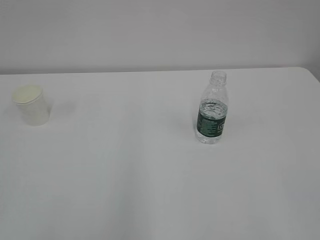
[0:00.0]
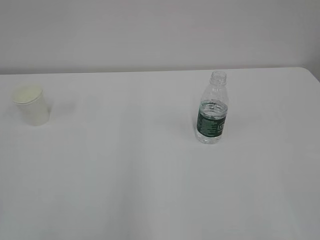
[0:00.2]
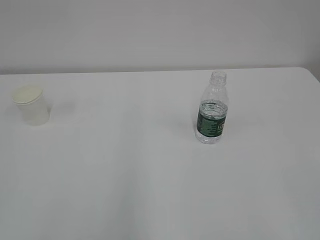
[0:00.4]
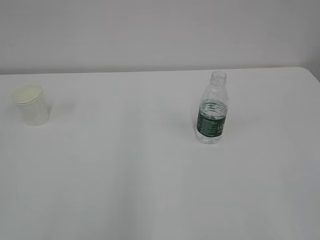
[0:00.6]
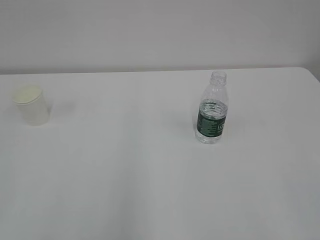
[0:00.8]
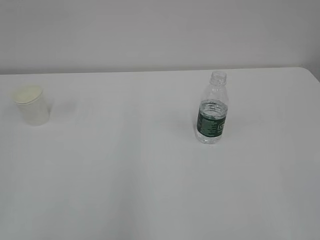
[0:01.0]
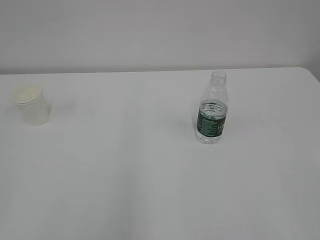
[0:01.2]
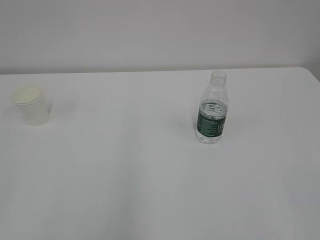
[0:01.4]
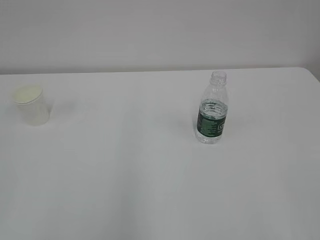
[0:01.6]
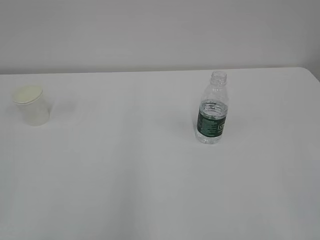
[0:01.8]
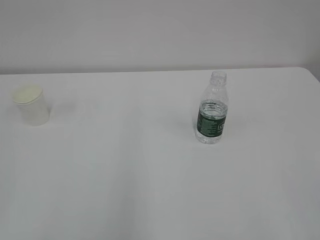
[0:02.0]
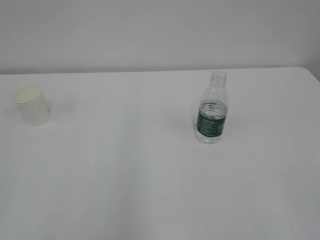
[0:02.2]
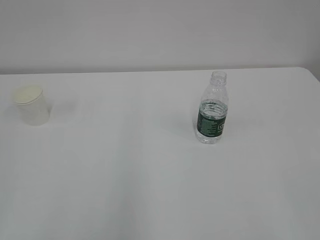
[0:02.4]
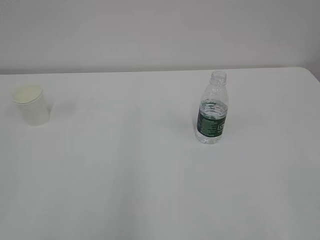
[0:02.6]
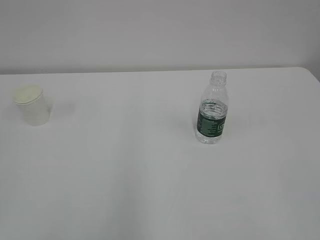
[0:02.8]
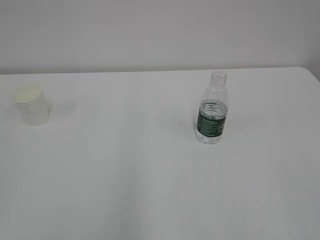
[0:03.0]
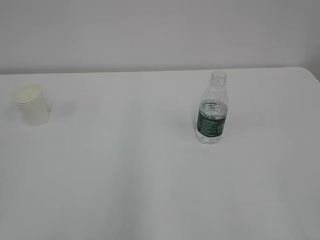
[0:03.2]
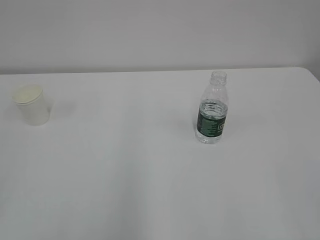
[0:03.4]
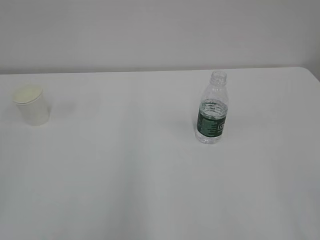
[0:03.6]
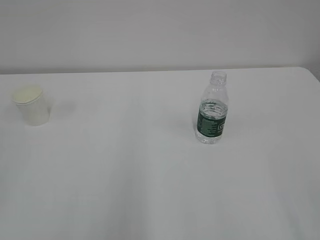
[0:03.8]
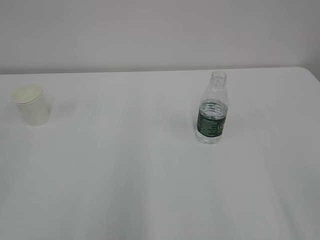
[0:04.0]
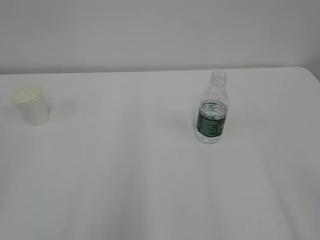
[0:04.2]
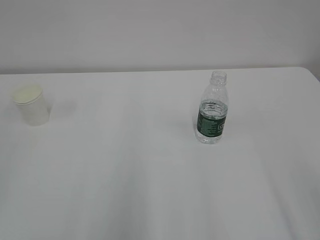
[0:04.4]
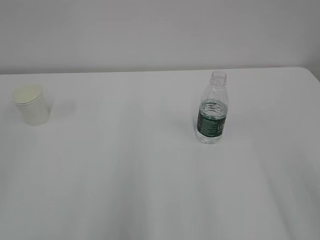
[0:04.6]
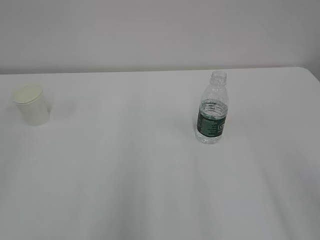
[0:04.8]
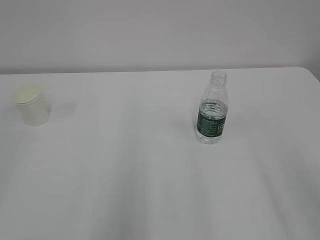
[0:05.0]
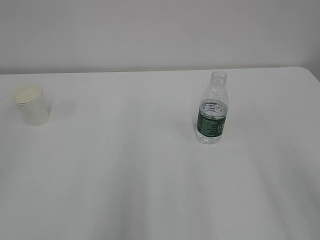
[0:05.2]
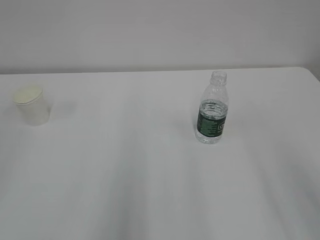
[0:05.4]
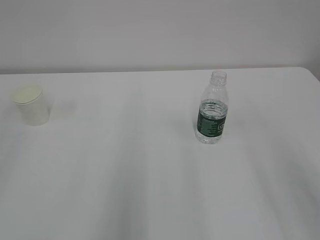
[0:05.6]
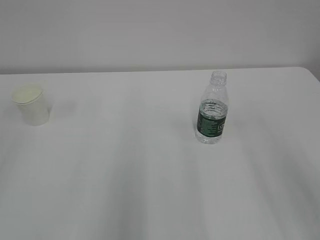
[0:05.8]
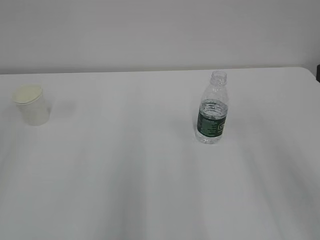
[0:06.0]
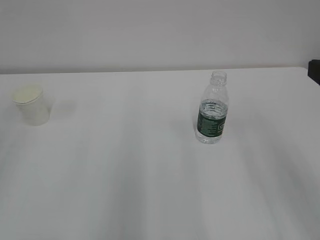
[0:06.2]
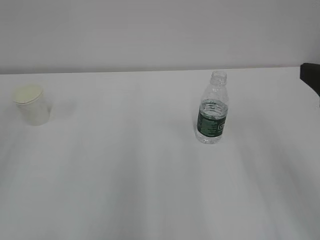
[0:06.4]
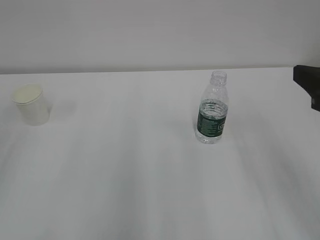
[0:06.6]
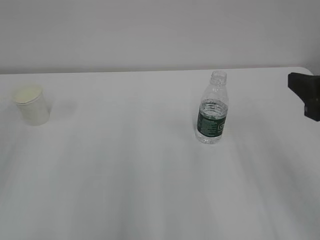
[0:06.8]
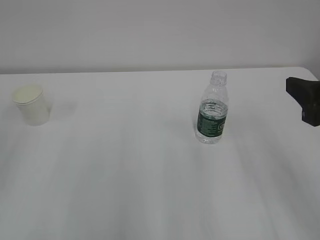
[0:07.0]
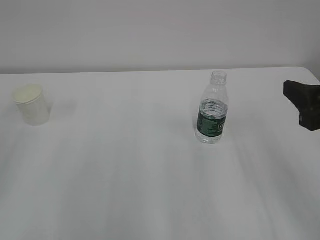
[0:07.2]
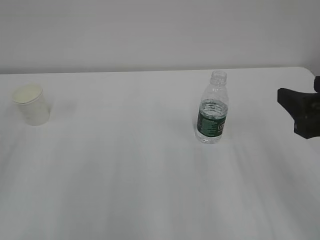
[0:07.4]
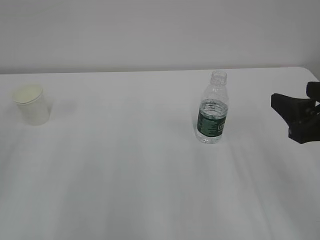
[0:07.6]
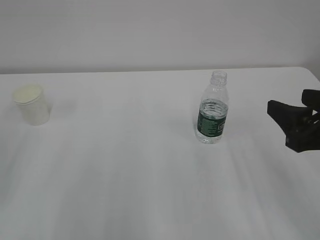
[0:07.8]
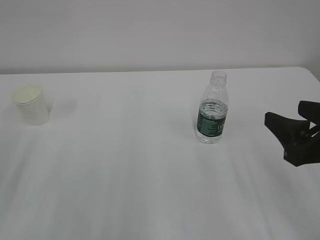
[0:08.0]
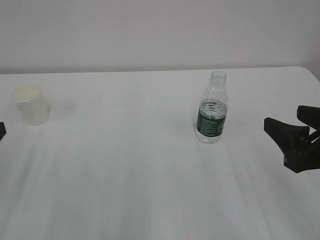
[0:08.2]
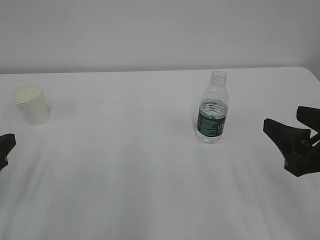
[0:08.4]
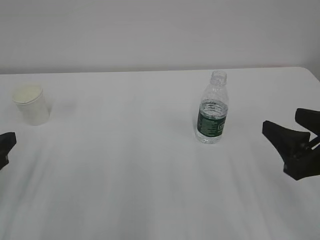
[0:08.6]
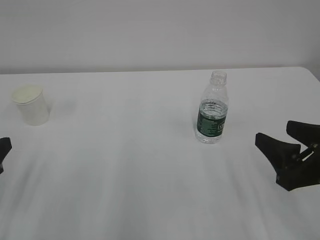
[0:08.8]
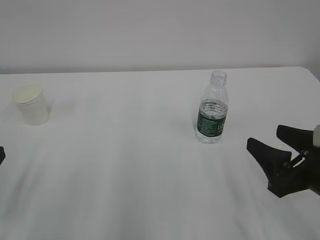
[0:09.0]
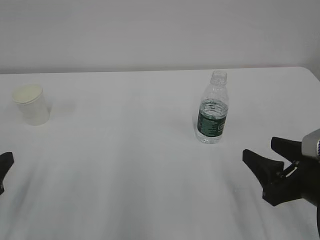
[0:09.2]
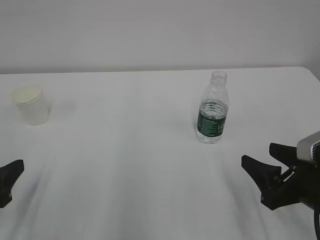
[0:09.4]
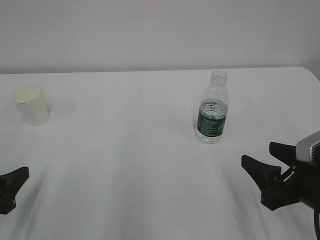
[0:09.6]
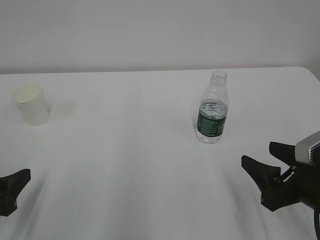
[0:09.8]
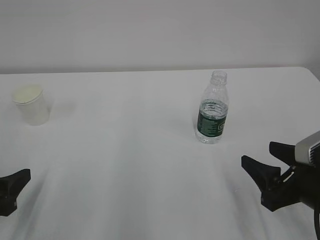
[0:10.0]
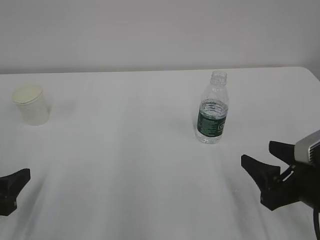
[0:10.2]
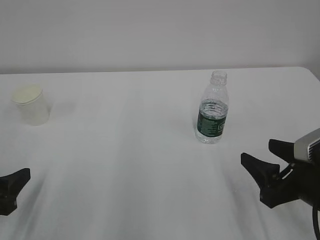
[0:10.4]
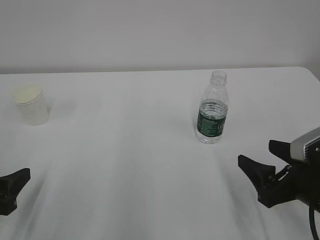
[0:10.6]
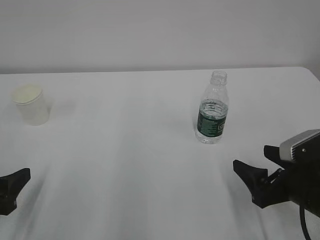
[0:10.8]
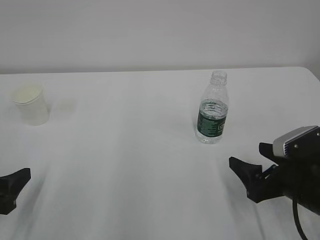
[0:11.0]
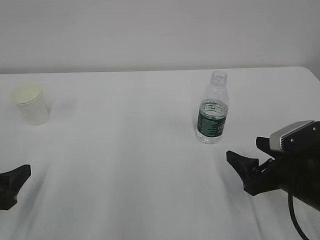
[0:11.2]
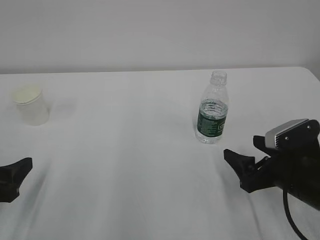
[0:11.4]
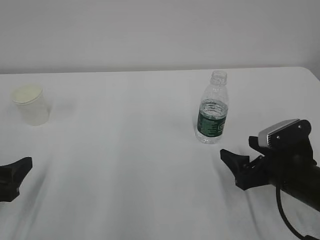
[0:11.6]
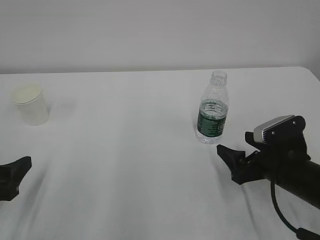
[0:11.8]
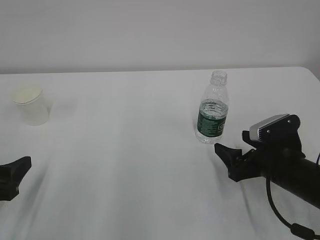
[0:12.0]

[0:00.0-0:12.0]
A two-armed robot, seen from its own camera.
0:06.0 to 0:07.6: The right gripper is displaced downward by some 5 cm.
0:07.6 to 0:09.0: The right gripper goes approximately 10 cm downward.
0:09.0 to 0:10.4: The grippers stay close to where they were, moving slightly.
0:10.4 to 0:12.0: The right gripper moves forward, roughly 5 cm, and opens.

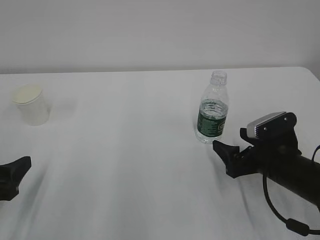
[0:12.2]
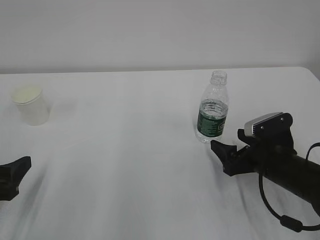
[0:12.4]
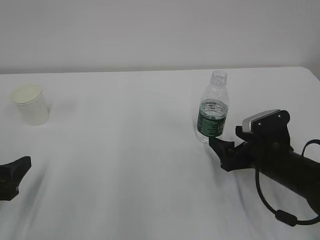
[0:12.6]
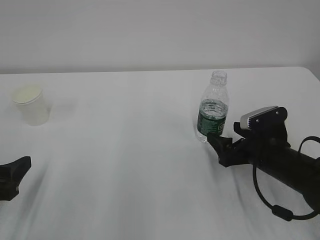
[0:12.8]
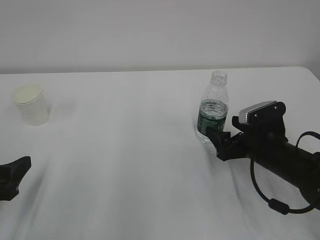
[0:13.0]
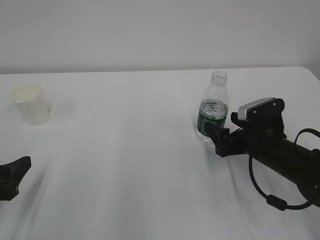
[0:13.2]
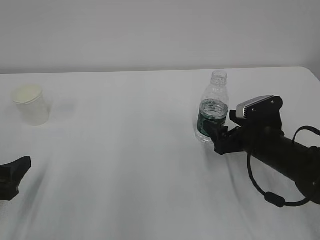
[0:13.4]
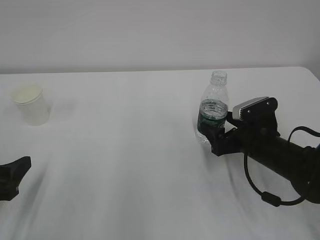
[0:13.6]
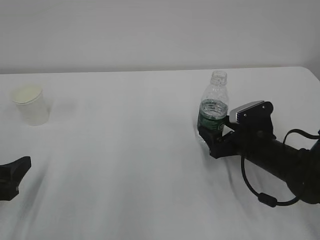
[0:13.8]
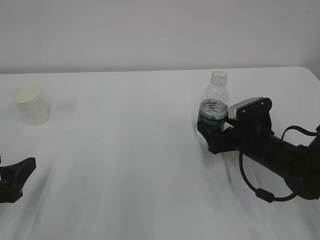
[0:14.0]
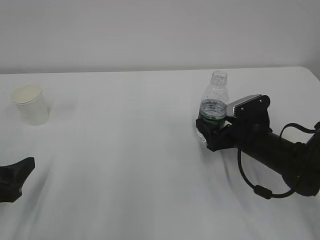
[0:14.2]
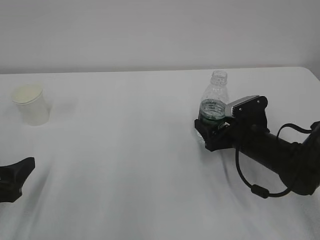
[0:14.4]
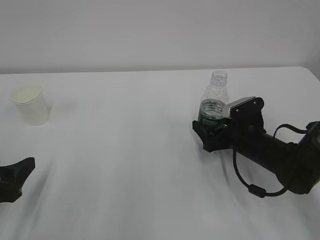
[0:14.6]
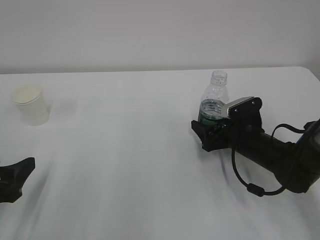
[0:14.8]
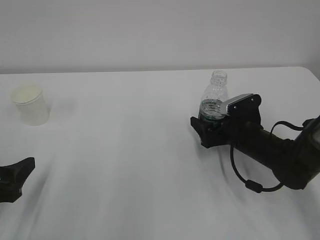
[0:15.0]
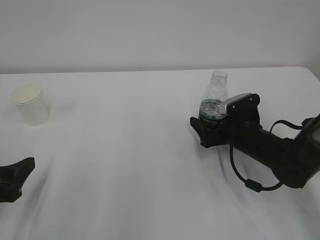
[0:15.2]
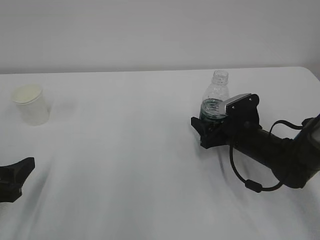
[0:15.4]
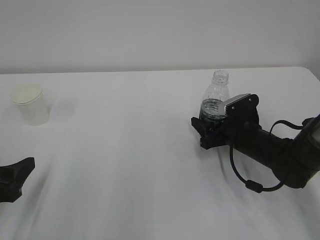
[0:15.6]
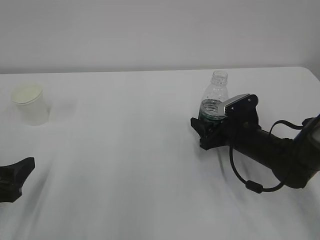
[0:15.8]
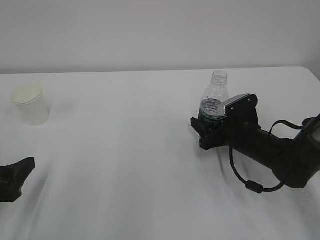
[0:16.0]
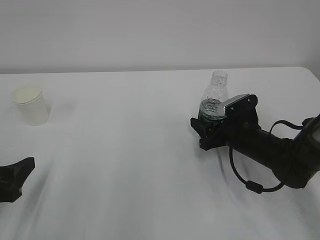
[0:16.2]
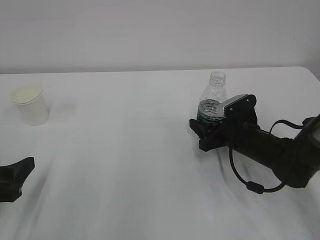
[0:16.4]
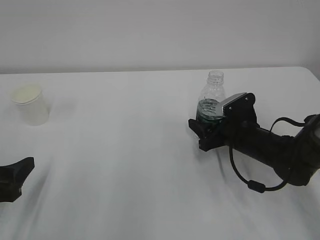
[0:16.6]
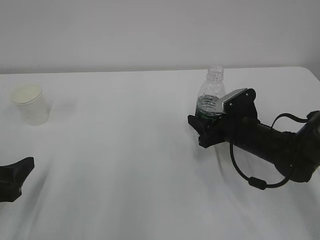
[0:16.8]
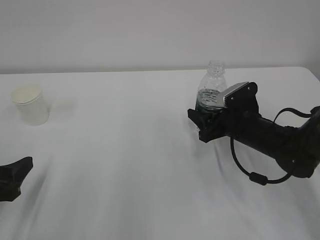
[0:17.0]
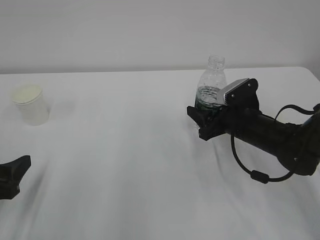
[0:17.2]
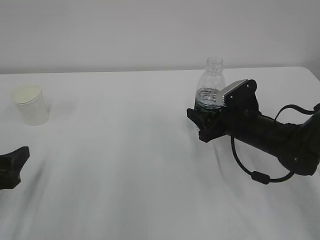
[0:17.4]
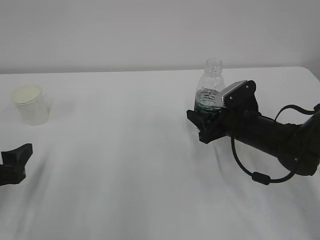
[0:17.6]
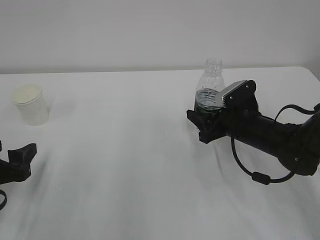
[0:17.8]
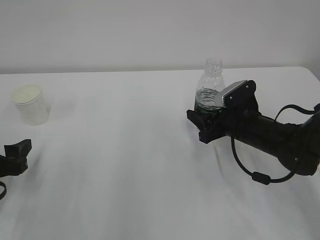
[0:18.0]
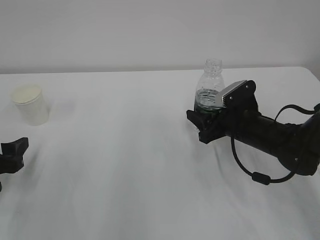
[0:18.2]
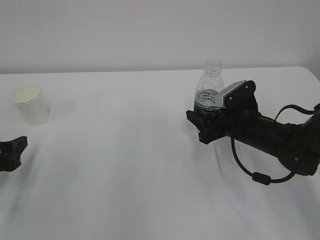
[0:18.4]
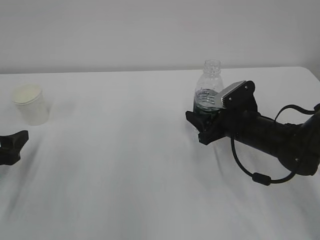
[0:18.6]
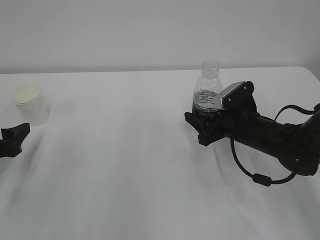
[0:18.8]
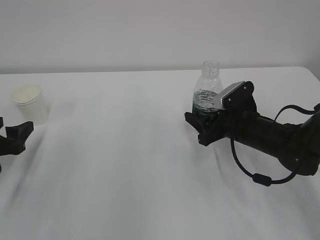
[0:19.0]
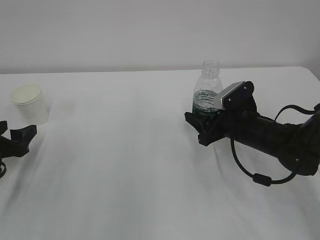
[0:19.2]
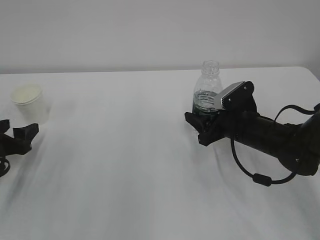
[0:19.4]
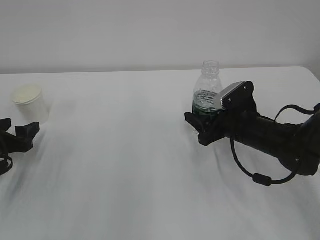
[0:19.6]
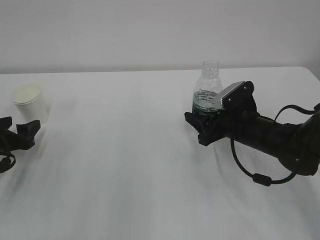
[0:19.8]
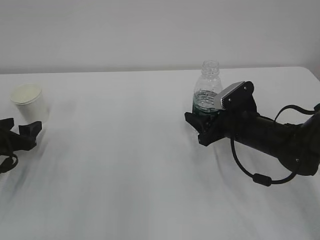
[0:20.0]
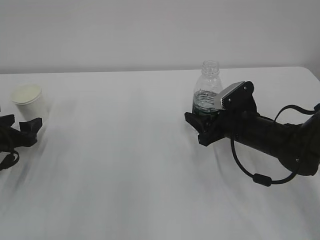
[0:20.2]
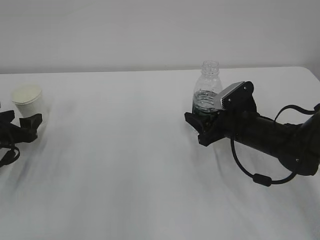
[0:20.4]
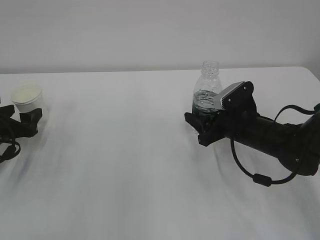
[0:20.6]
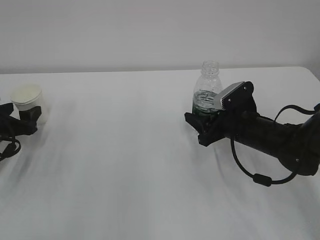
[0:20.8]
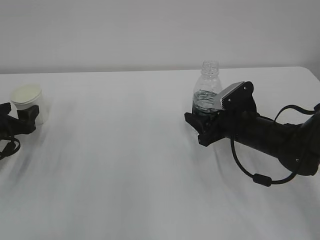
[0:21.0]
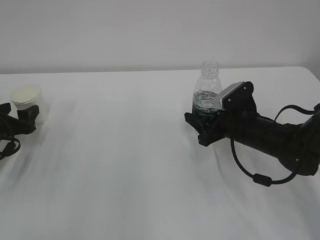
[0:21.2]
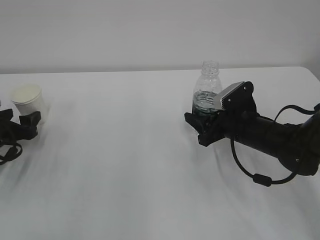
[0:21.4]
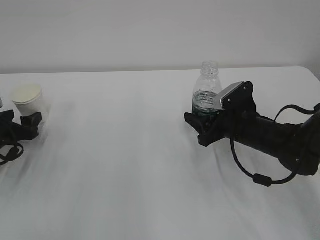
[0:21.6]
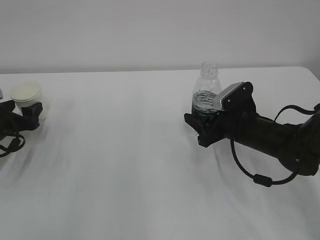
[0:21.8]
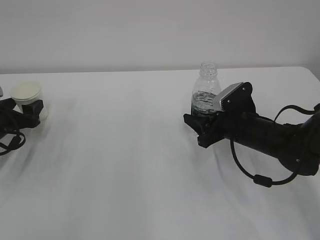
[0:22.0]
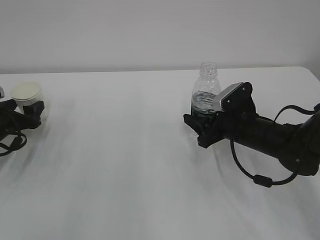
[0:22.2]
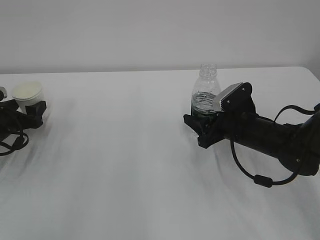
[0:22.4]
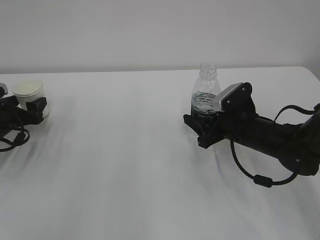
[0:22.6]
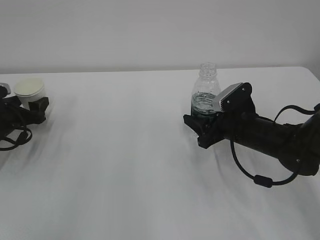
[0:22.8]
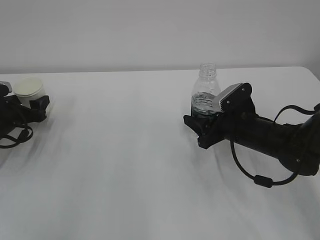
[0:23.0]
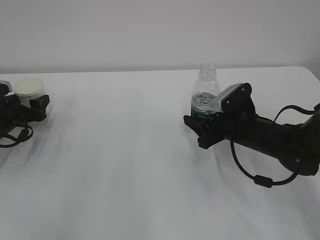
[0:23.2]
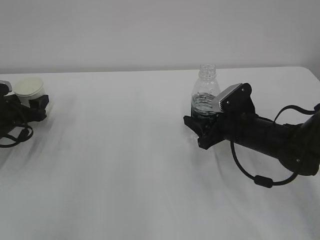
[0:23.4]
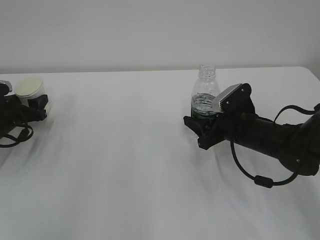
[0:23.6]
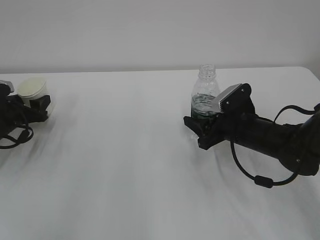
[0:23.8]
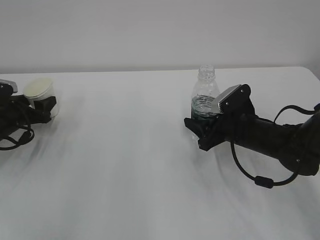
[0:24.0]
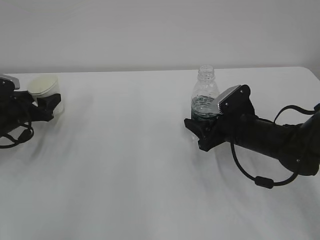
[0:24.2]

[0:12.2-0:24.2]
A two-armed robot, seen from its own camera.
0:12.2 to 0:13.8: The right gripper travels forward by some 5 cm.
0:13.8 to 0:15.2: There are only small adjustments of the grippers.
0:15.2 to 0:16.6: The right gripper closes its fingers.
0:16.6 to 0:18.2: The left gripper goes roughly 5 cm forward.
0:18.2 to 0:19.8: The left gripper travels forward by approximately 10 cm.
0:19.8 to 0:21.2: The grippers make only small movements.
0:21.2 to 0:22.6: The grippers make only small movements.
0:22.6 to 0:24.2: The left gripper closes.
